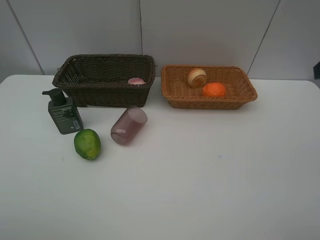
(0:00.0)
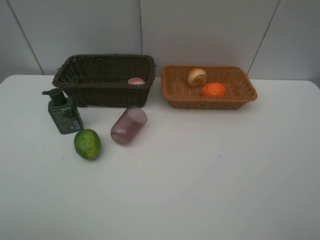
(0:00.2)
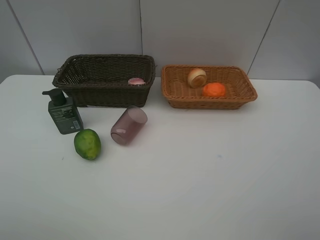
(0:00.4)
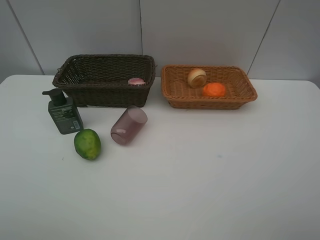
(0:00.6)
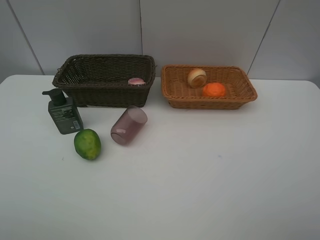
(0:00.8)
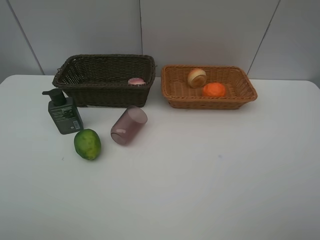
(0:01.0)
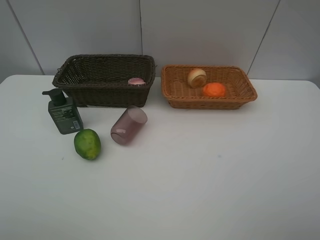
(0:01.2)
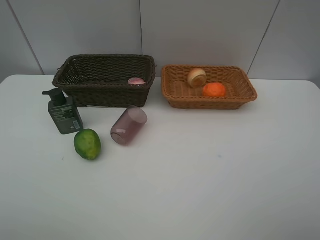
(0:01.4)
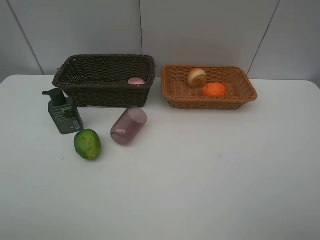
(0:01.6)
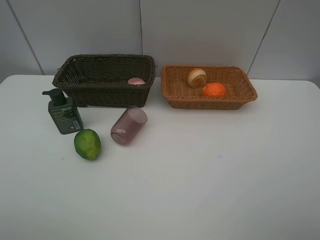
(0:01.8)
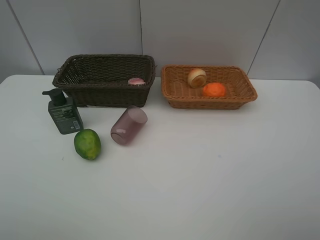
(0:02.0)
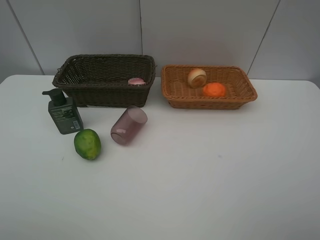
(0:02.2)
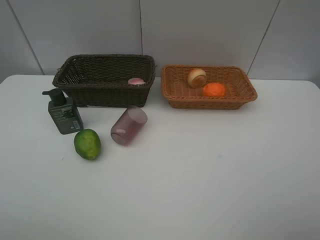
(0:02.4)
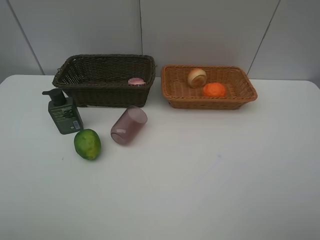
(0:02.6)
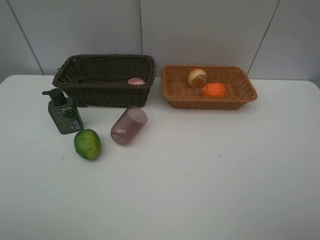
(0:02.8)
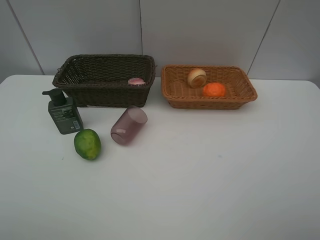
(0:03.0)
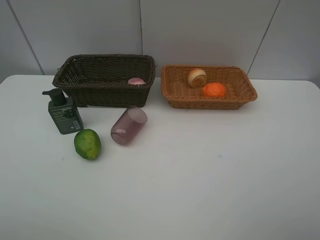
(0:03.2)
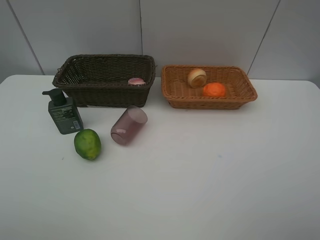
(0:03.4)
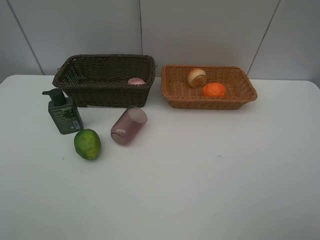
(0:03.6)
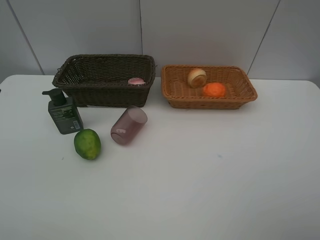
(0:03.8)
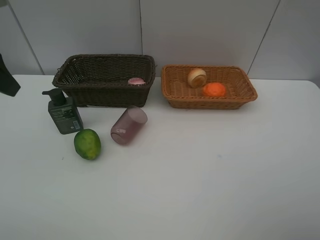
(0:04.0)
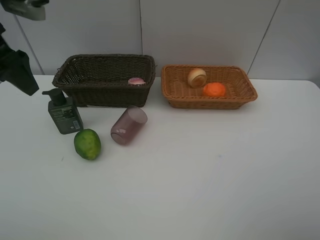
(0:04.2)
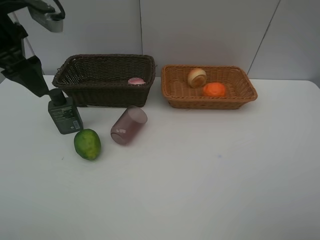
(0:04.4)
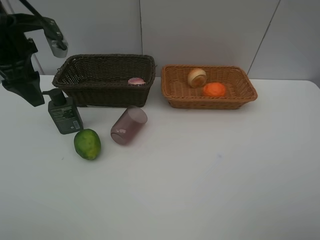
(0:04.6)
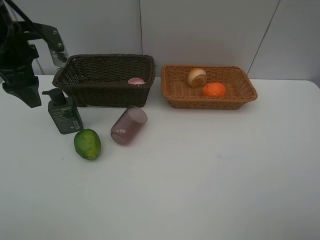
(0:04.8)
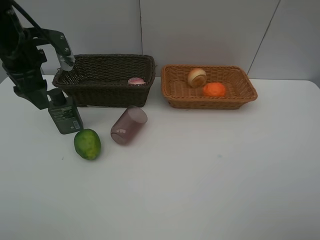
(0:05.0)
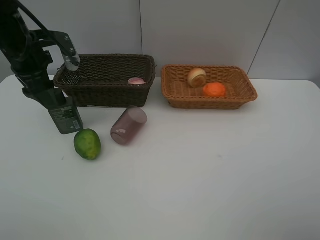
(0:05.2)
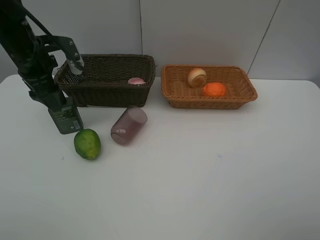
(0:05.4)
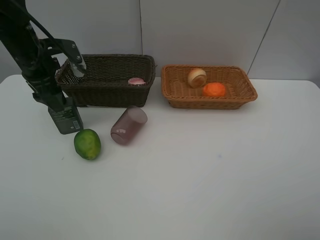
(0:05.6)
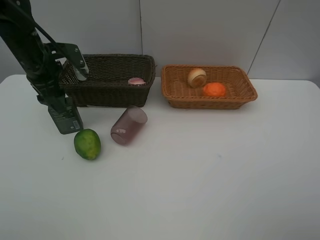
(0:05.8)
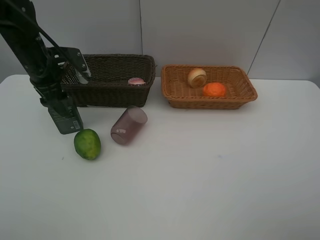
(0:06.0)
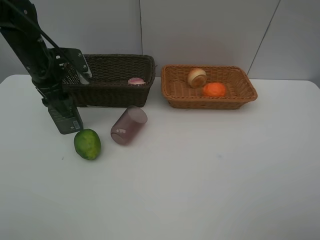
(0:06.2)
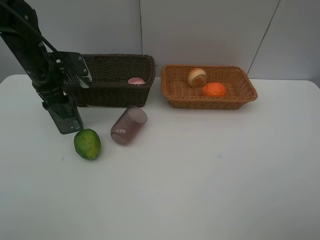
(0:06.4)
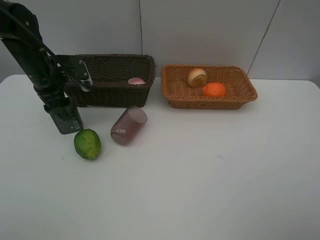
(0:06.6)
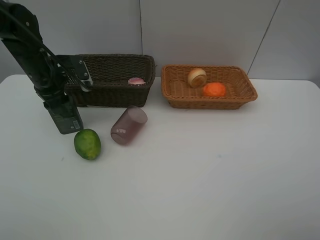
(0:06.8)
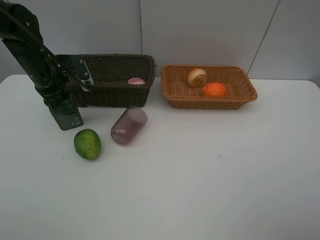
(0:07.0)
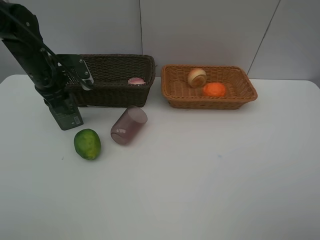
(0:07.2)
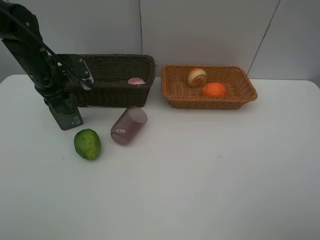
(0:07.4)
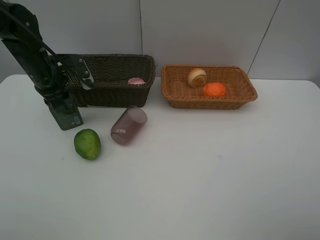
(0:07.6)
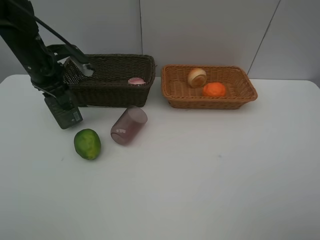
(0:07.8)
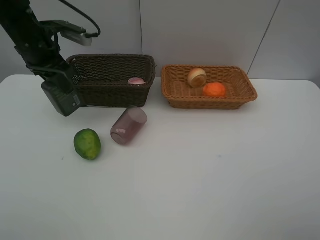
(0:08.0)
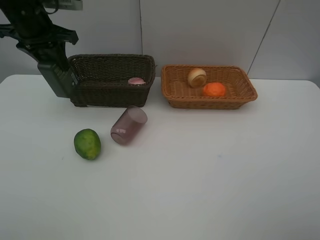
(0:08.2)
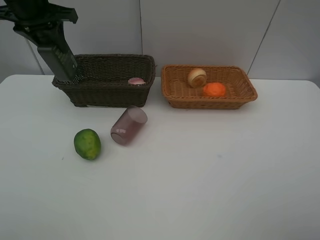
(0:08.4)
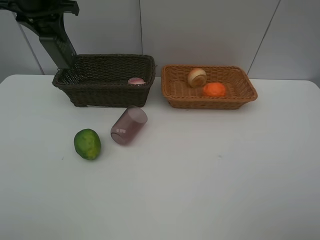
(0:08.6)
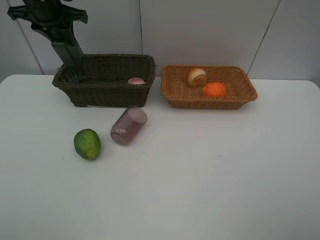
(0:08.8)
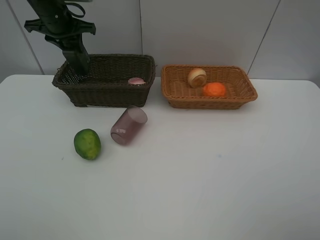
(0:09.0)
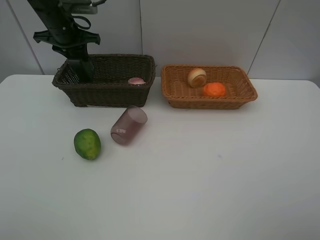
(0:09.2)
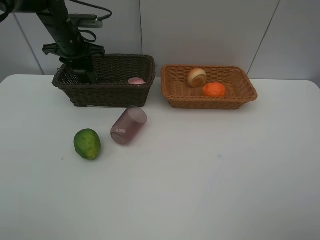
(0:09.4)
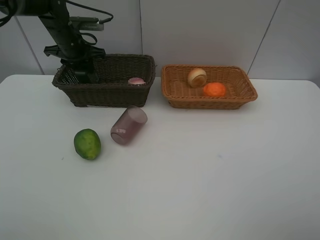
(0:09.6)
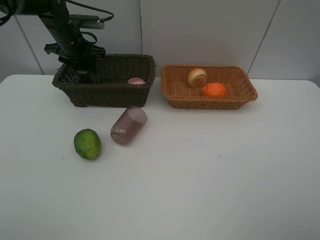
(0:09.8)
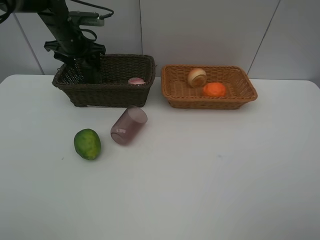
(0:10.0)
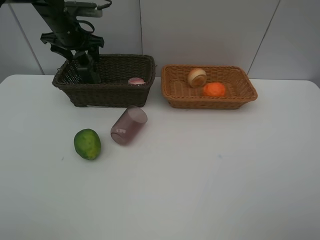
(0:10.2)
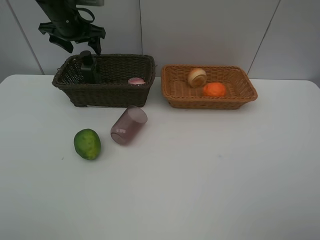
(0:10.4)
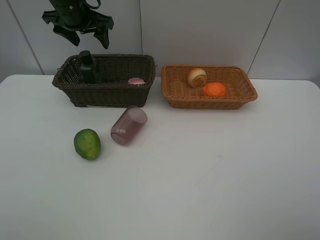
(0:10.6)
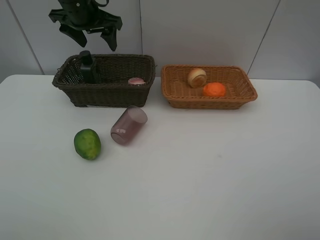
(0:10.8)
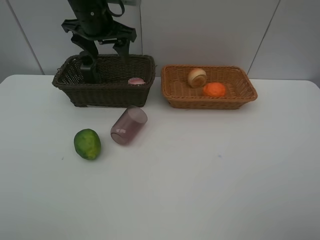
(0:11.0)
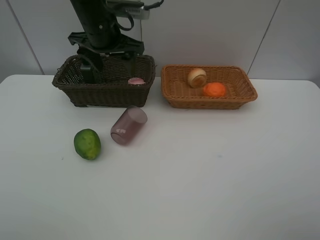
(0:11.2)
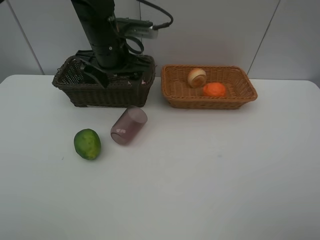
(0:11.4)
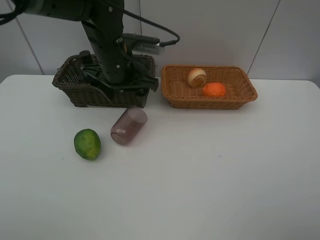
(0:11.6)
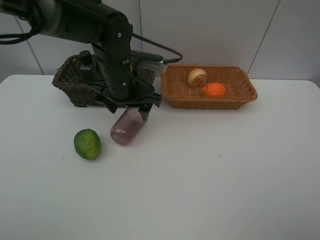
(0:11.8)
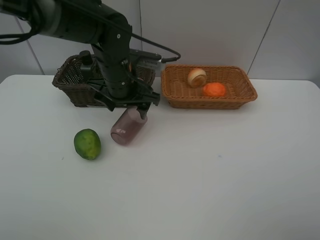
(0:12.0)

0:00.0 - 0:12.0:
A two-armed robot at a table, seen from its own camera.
Task of the whole recording: place multiple objects separately in different baskets.
0:01.6 - 0:03.0: Both grippers stay about where they are.
0:03.0 - 0:04.4: The left gripper travels forward by roughly 30 cm.
0:04.4 - 0:06.0: The left gripper goes roughly 10 cm downward and forward.
0:06.0 - 0:07.6: The left gripper closes.
0:07.6 - 0:09.0: The left gripper is displaced forward and upward by roughly 15 cm.
0:09.0 - 0:10.4: The left gripper opens.
0:10.4 - 0:12.0: The left gripper heads to the right, backward and downward, covering some 20 cm.

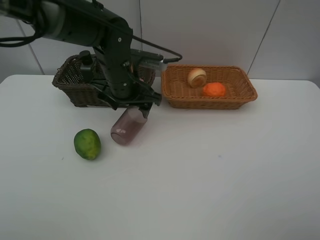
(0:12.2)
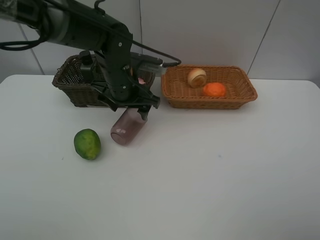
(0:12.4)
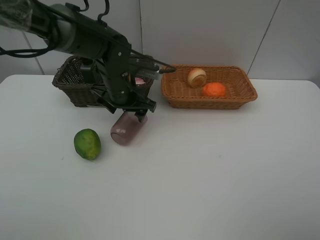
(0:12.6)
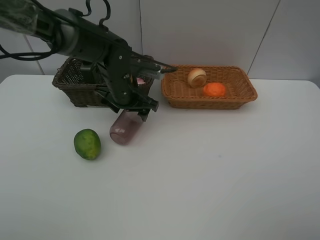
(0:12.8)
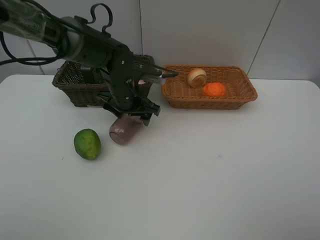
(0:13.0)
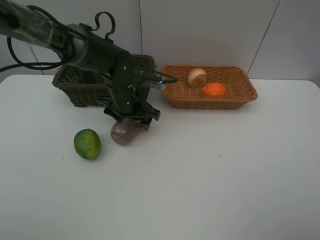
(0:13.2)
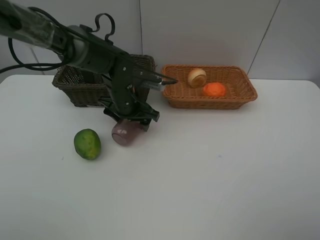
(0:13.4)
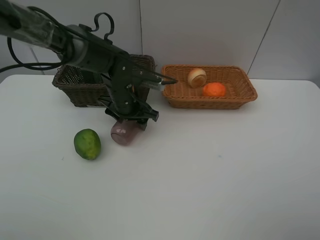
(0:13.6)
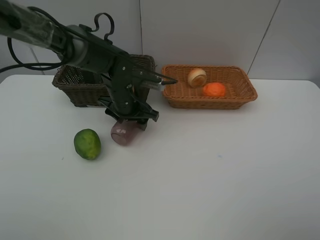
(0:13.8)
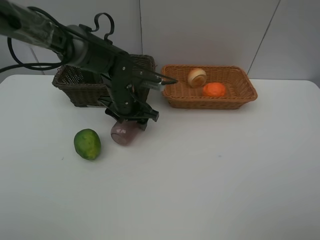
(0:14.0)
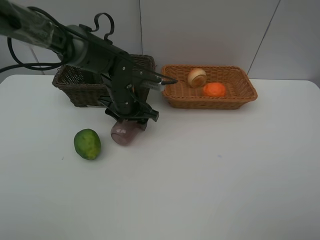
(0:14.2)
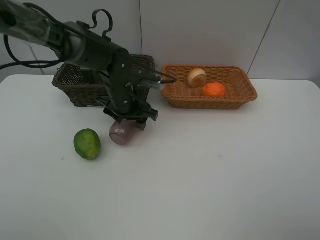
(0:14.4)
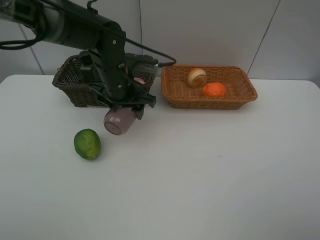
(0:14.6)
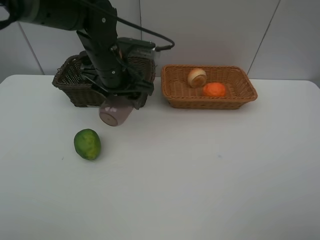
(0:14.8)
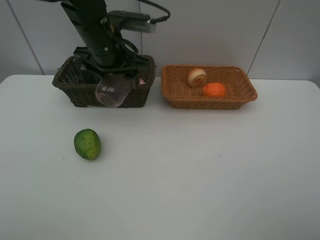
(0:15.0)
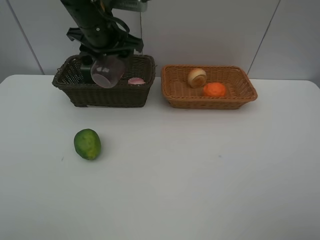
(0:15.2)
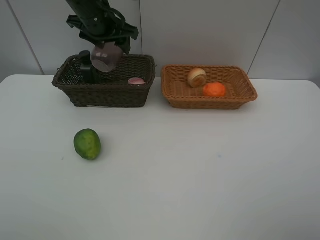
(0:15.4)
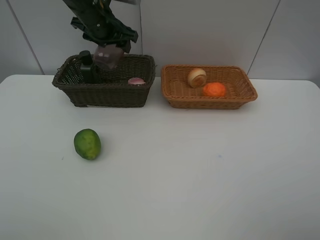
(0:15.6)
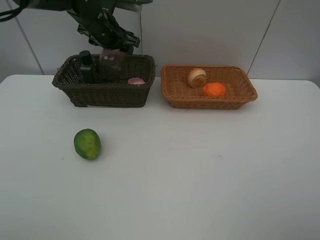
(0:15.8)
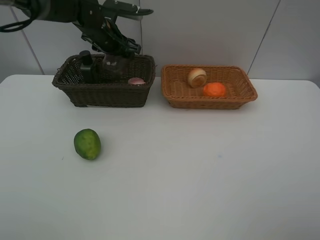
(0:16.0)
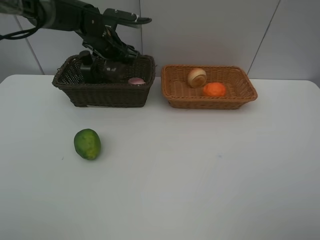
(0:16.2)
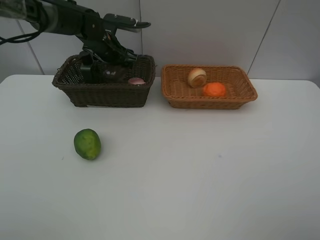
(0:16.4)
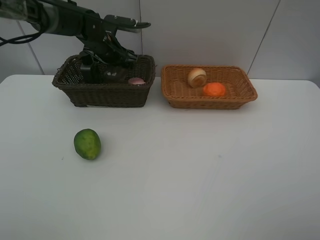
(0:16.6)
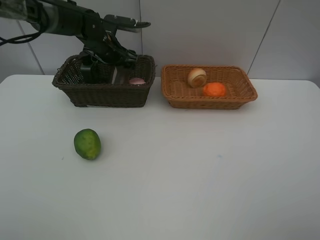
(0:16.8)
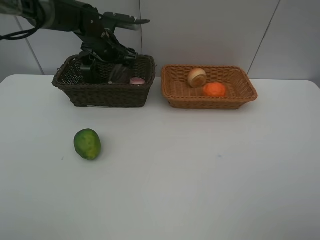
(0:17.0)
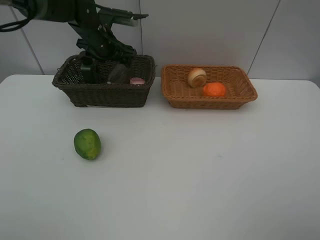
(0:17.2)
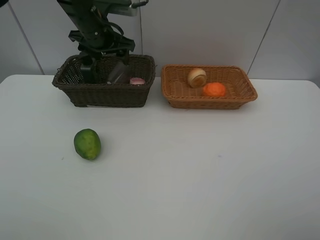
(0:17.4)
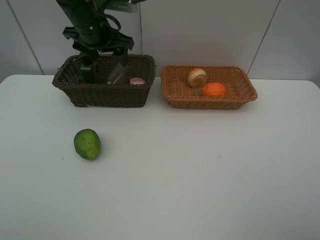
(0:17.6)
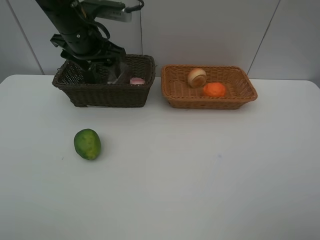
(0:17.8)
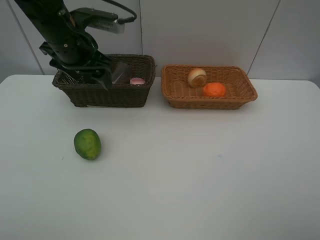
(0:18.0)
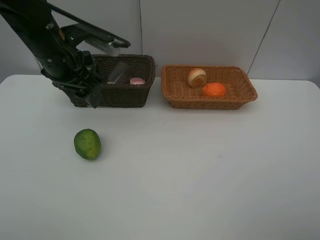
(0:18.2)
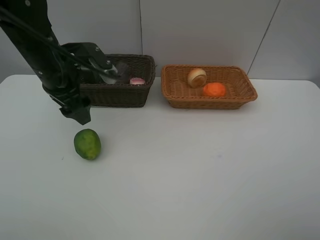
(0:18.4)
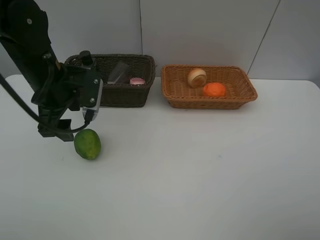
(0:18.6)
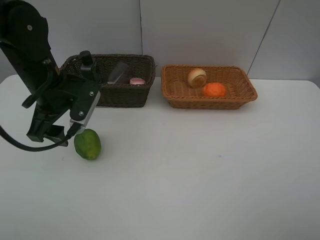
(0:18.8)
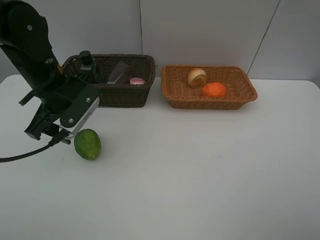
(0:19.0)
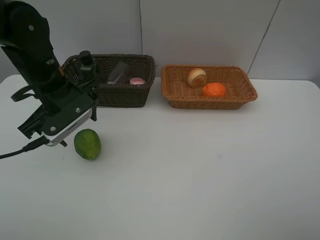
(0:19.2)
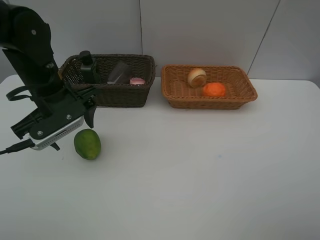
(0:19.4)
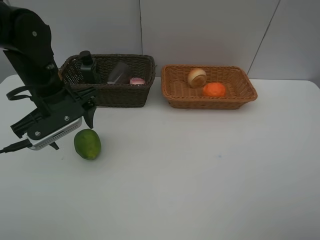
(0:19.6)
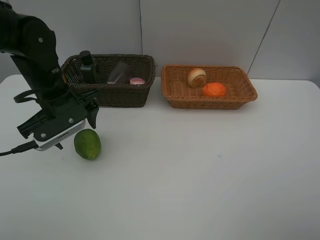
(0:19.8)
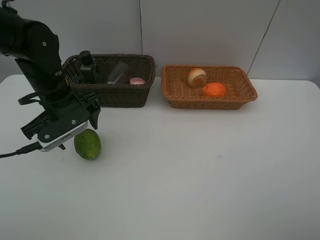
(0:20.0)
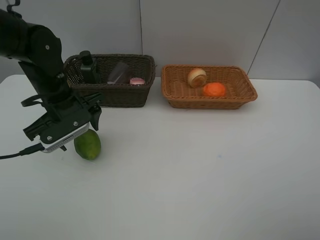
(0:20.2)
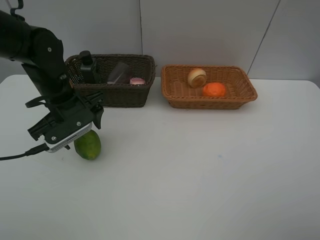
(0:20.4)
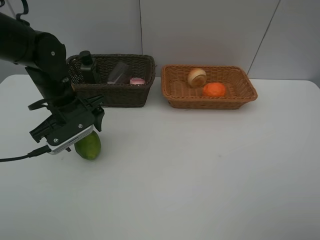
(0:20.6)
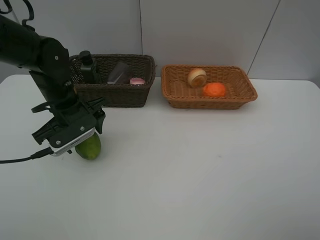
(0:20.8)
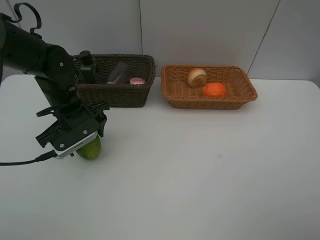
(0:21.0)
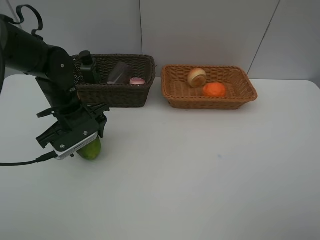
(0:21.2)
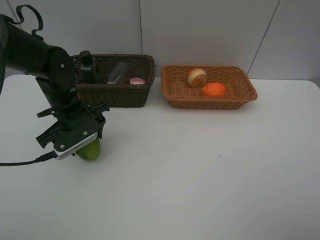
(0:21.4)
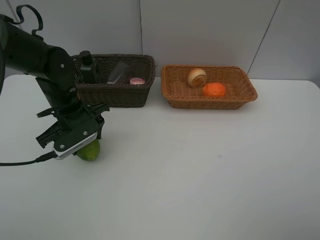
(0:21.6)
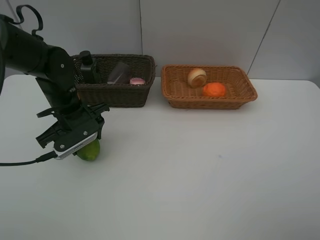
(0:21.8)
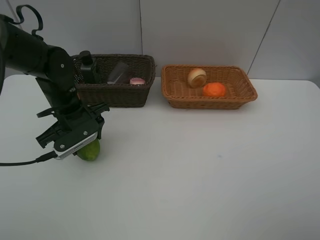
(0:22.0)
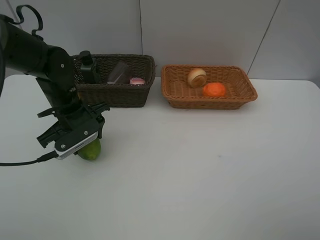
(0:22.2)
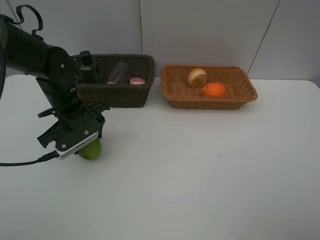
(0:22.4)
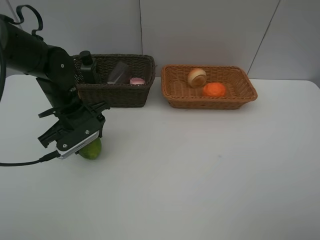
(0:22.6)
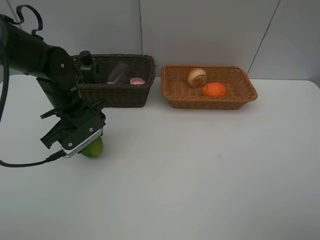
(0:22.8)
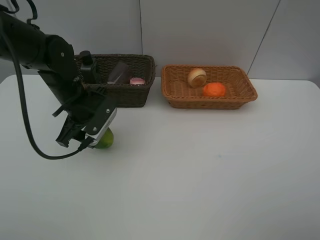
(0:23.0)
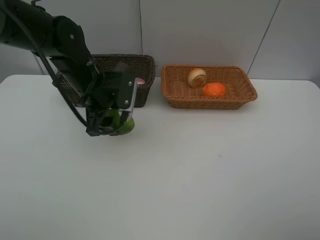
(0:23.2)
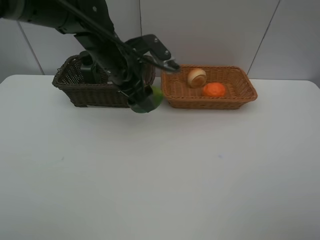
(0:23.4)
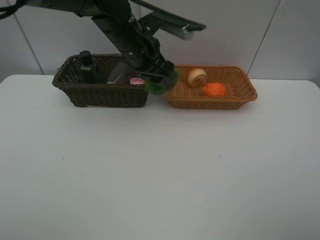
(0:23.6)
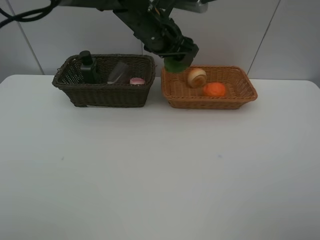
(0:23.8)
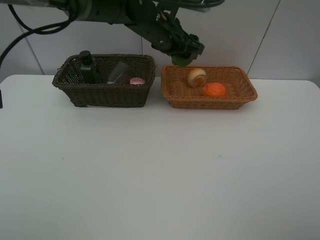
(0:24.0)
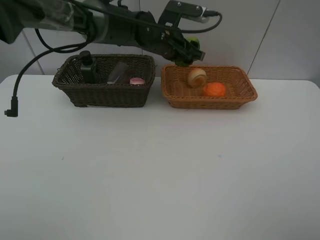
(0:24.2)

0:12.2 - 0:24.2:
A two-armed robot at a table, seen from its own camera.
Task of the whole recording: place multiple objects separately in different baskets.
0:12.2 - 0:13.8: The left gripper heads downward, covering roughly 5 cm.
0:13.8 - 0:15.2: The left gripper moves upward, some 15 cm.
0:15.2 - 0:16.6: The left gripper goes approximately 15 cm downward and forward.
0:16.6 - 0:18.2: The left gripper moves backward, about 15 cm.
0:18.2 - 0:19.8: The left gripper travels downward by some 5 cm.
0:19.8 - 0:21.2: The left gripper moves some 5 cm.
0:21.2 - 0:22.6: Both grippers stay about where they are.
0:22.6 - 0:24.2: The left gripper is displaced to the right and forward by some 20 cm.
